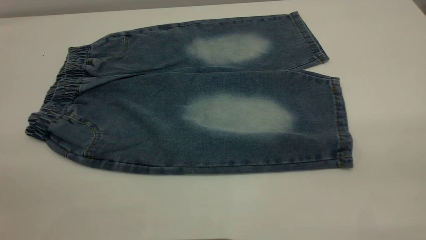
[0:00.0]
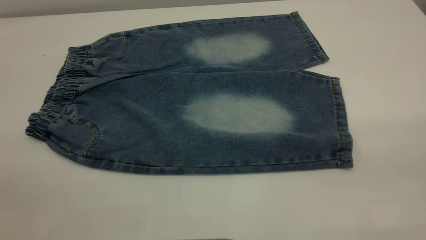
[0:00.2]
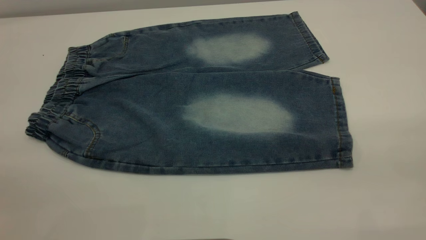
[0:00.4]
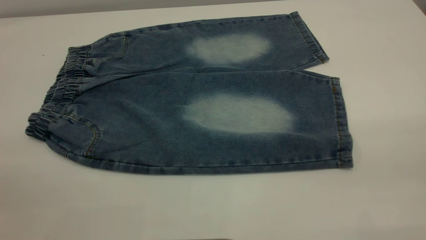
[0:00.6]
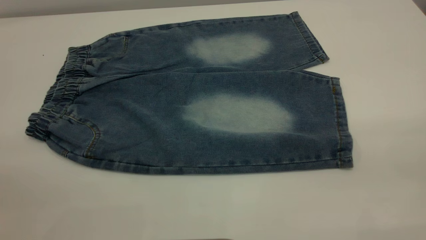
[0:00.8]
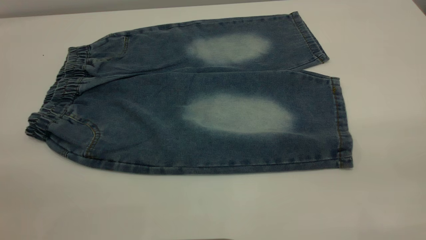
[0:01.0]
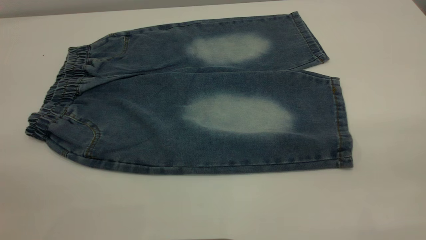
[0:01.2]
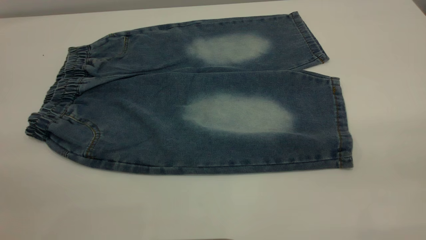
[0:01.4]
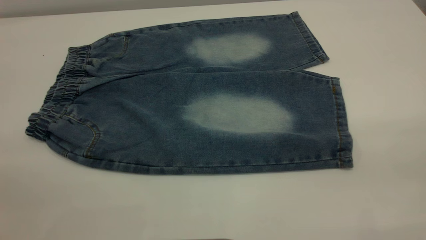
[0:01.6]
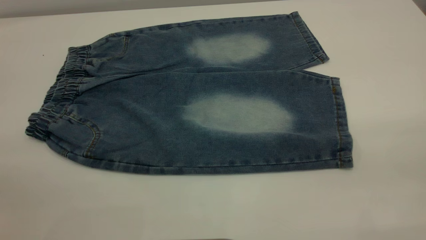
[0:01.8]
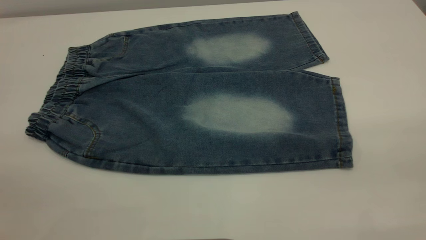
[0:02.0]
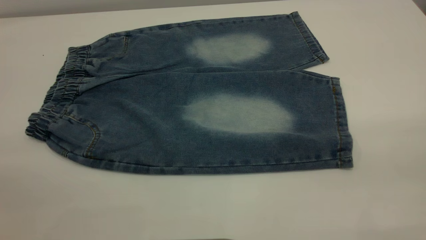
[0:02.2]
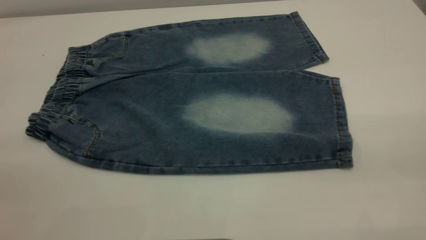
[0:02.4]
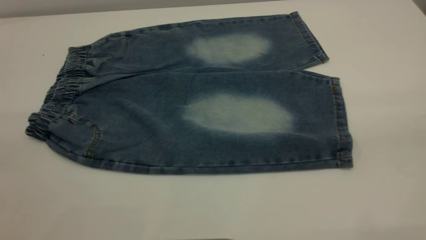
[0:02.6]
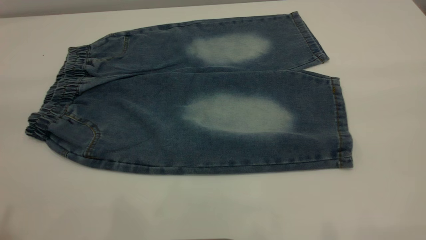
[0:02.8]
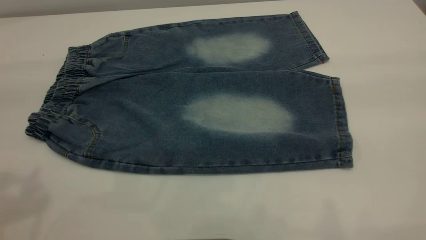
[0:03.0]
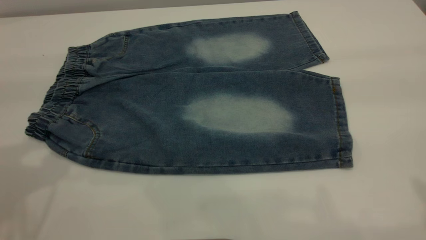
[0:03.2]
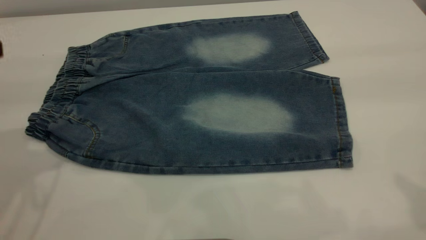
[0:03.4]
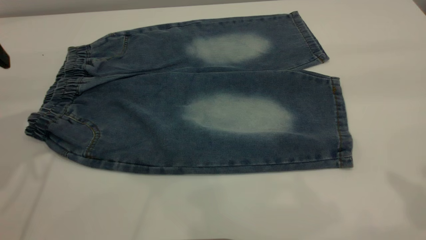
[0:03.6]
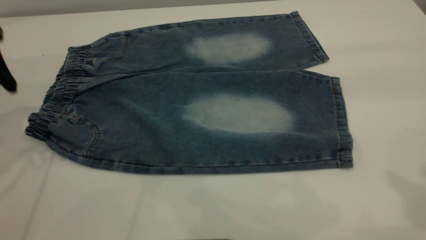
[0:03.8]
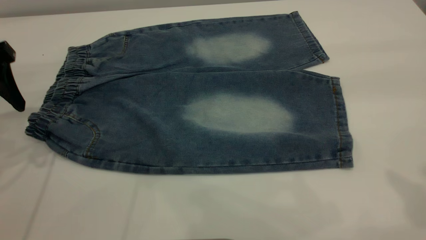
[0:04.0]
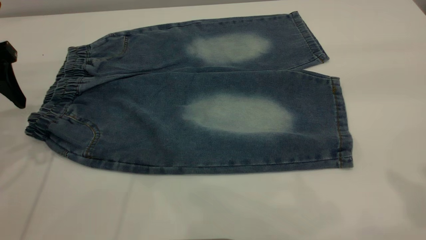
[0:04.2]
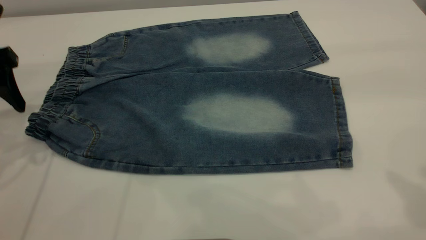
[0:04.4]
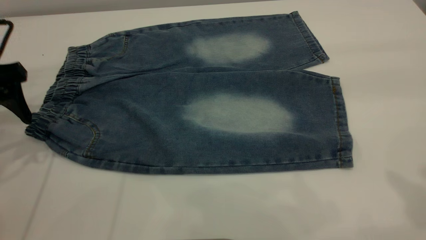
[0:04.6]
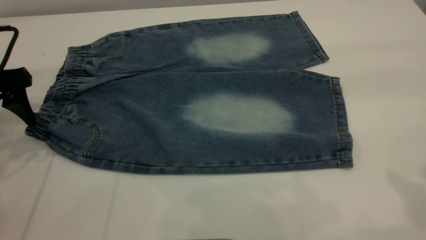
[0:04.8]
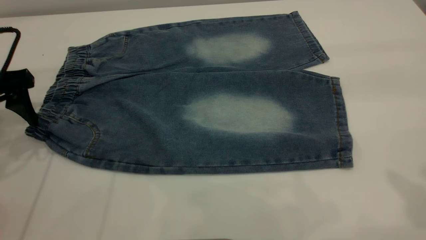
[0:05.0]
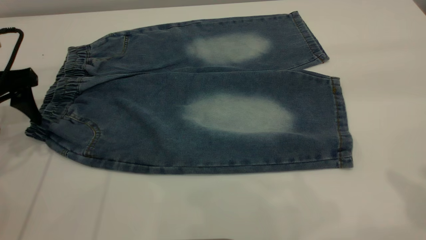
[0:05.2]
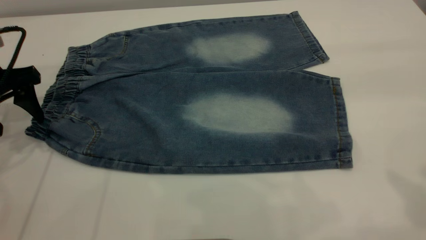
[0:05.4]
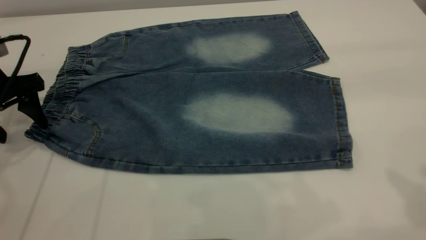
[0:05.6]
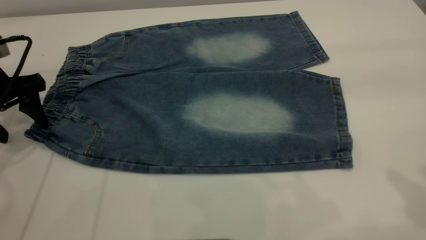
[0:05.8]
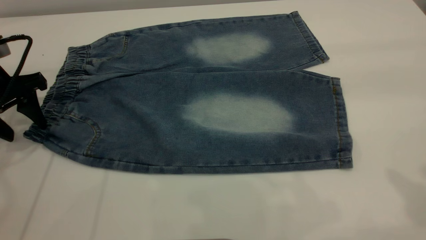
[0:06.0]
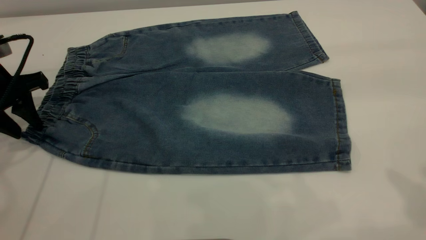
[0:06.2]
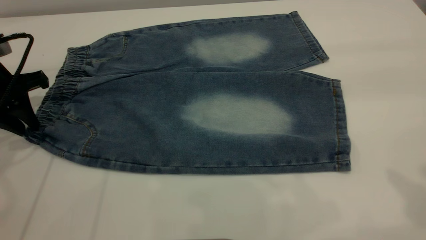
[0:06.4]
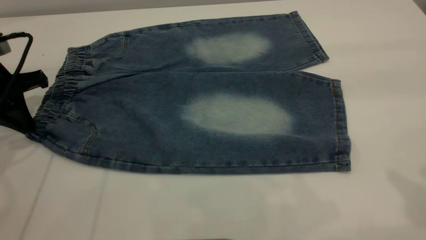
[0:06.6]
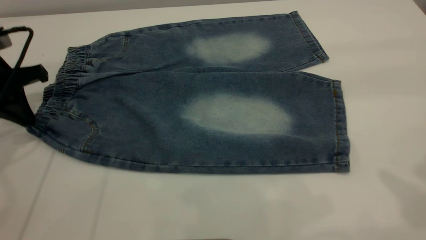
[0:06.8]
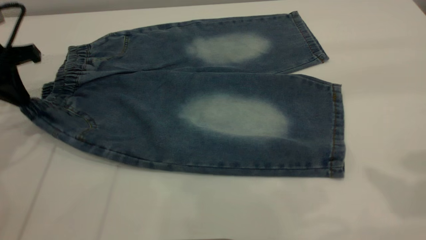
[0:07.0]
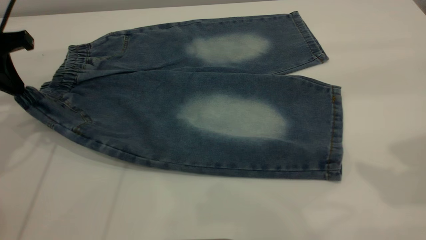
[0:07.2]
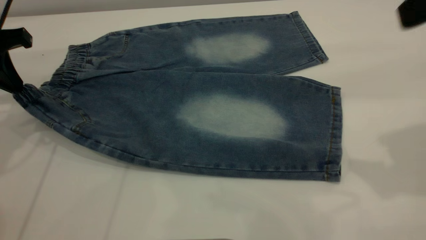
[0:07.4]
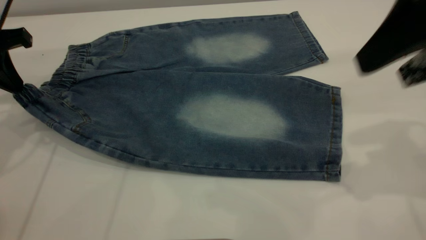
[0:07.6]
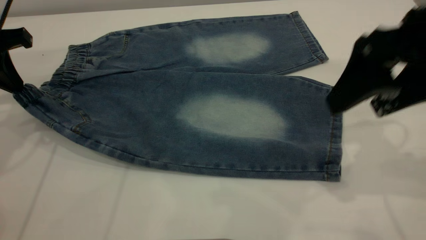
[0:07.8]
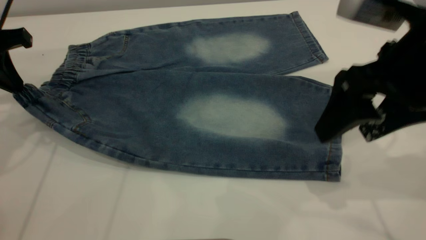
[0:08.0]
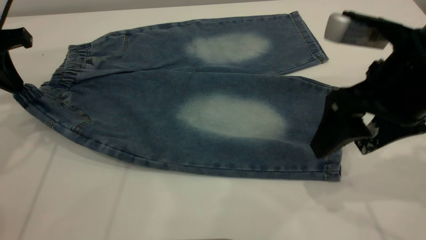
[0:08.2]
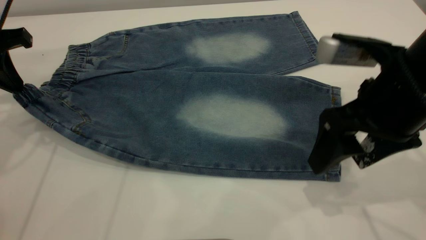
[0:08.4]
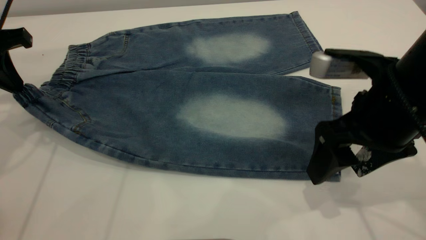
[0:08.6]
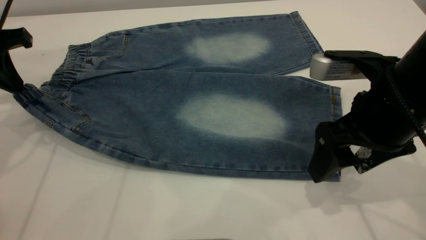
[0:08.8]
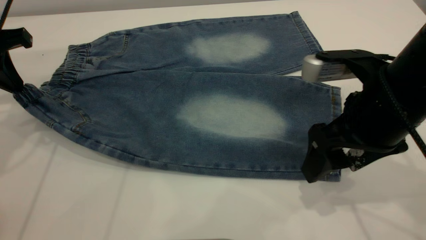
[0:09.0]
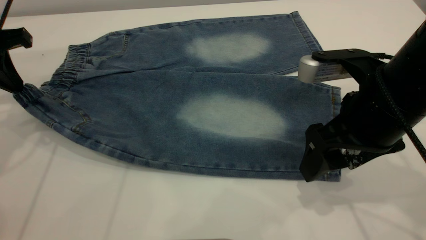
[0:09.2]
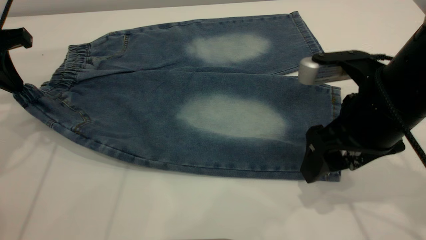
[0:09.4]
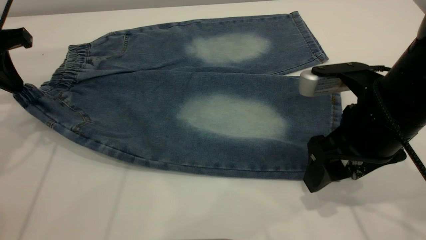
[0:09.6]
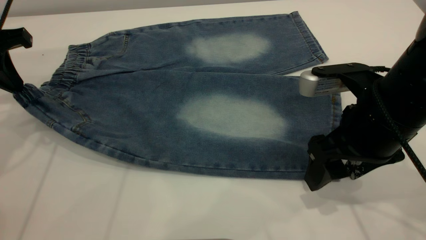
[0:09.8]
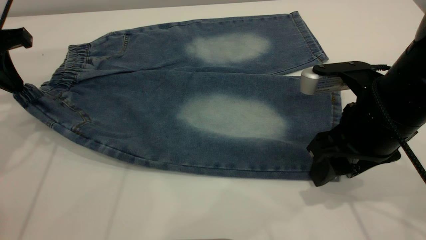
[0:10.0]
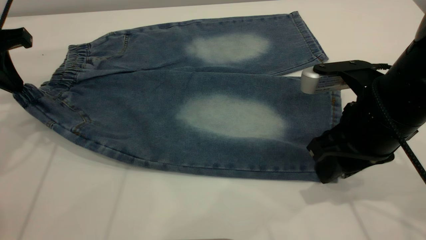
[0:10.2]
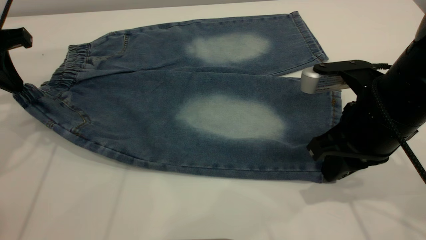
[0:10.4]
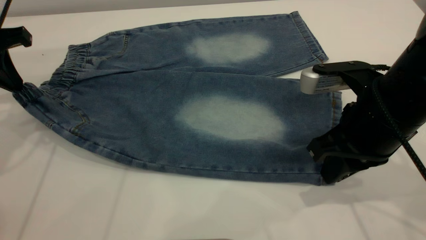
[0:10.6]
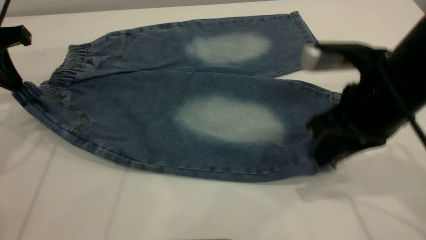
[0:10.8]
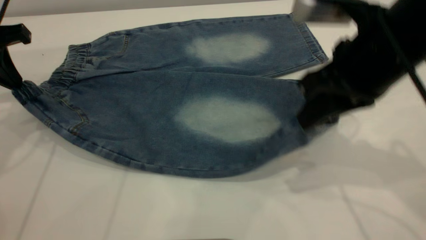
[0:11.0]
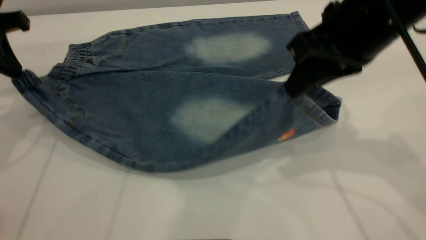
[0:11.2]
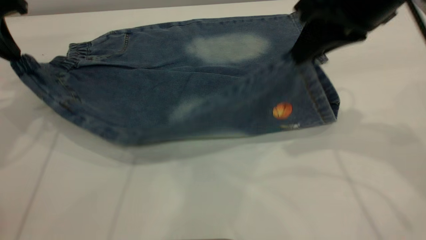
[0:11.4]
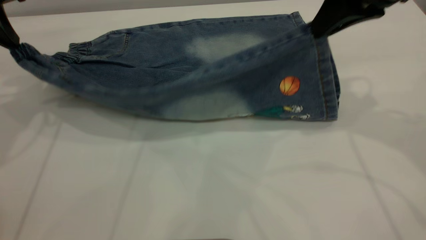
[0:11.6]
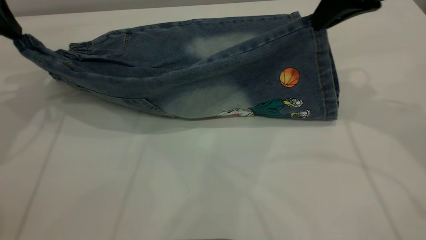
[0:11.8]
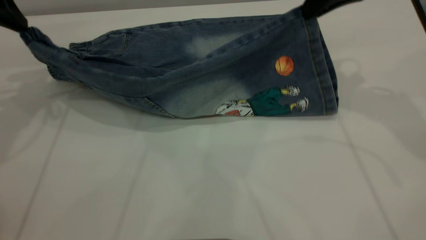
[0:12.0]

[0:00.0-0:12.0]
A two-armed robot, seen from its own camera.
0:00.0 to 0:01.6: The two grippers keep their place.
0:03.0 to 0:04.4: The left gripper is displaced downward and forward by roughly 20 cm.
0:04.4 to 0:06.0: The left gripper goes some 5 cm downward.
0:06.0 to 0:07.6: The left gripper moves upward, about 5 cm, and closes, while the right gripper shifts roughly 15 cm downward and forward.
0:07.6 to 0:09.0: The right gripper heads downward and to the left, covering some 10 cm.
0:09.0 to 0:10.4: The right gripper closes.
0:10.4 to 0:12.0: The right gripper heads forward and upward, covering approximately 20 cm, while the left gripper moves upward, about 5 cm.

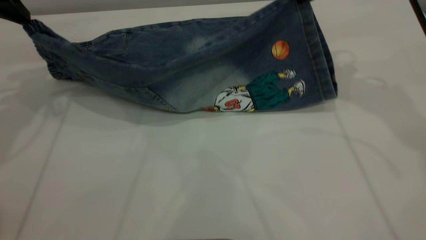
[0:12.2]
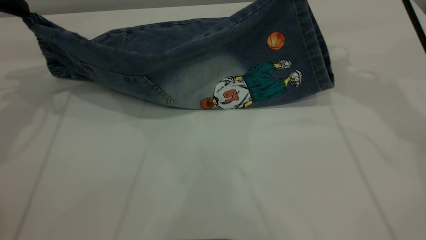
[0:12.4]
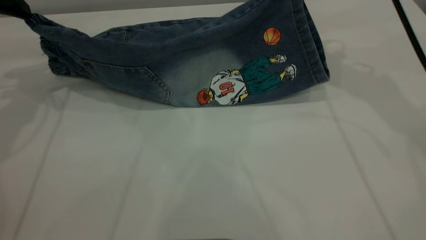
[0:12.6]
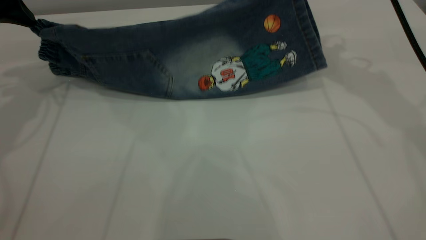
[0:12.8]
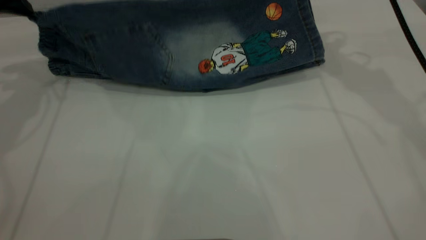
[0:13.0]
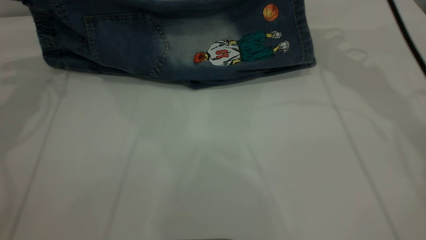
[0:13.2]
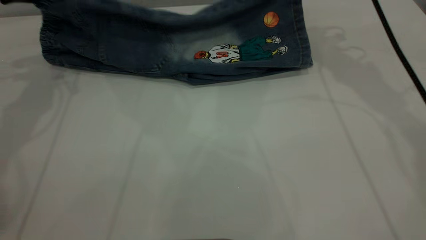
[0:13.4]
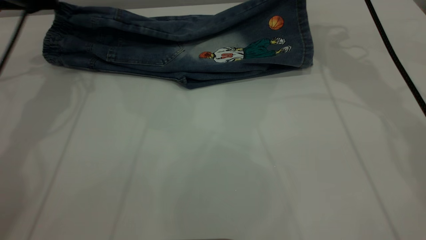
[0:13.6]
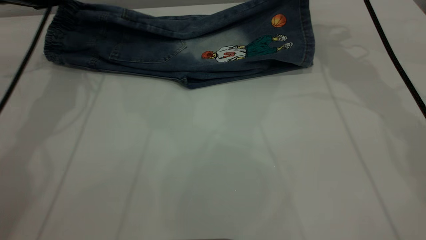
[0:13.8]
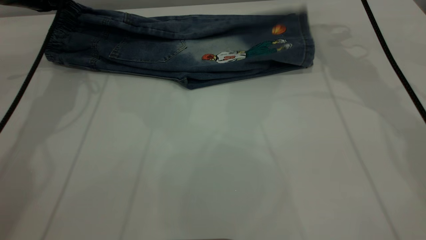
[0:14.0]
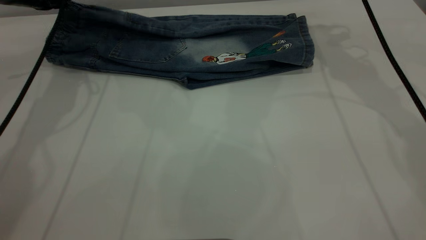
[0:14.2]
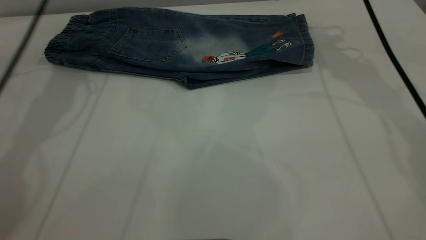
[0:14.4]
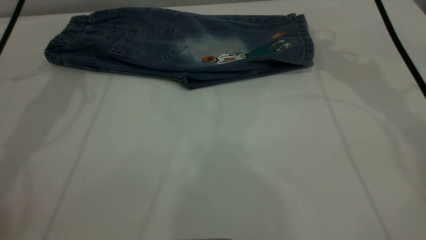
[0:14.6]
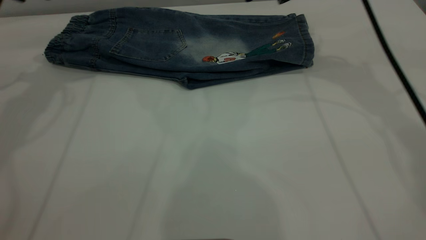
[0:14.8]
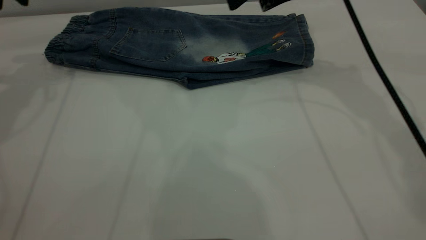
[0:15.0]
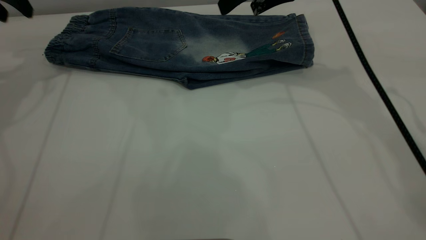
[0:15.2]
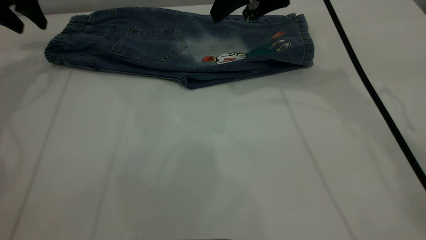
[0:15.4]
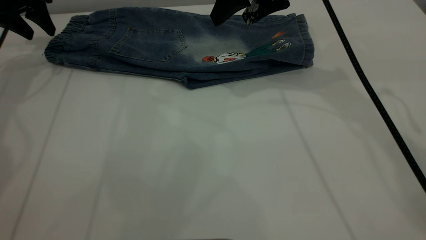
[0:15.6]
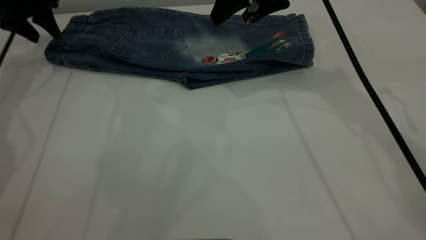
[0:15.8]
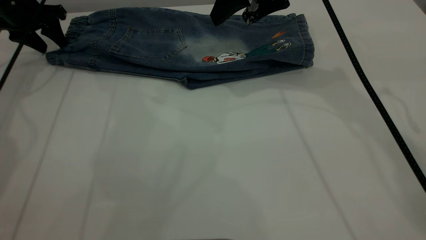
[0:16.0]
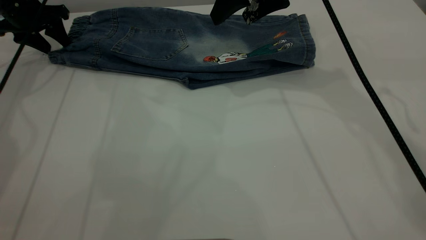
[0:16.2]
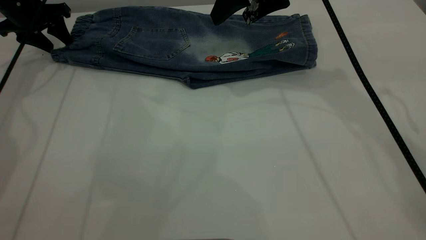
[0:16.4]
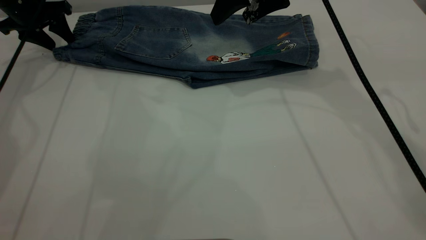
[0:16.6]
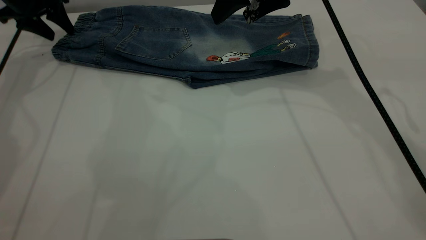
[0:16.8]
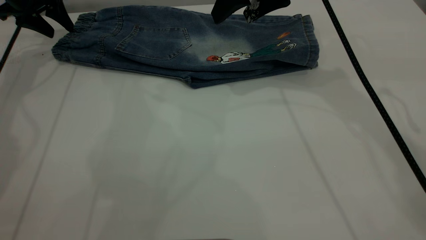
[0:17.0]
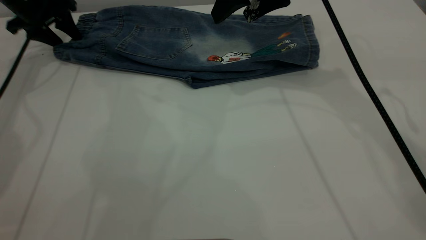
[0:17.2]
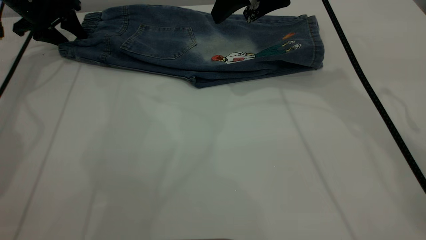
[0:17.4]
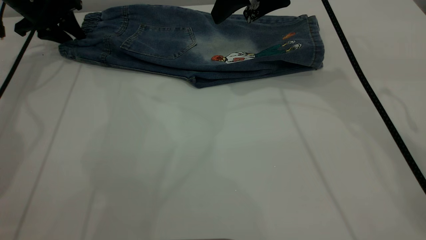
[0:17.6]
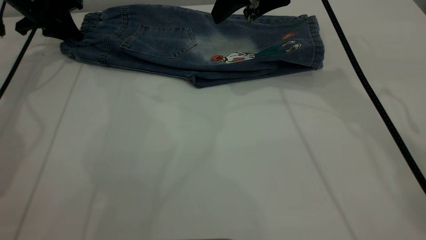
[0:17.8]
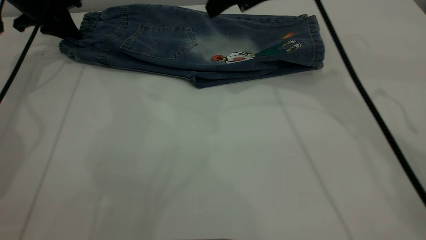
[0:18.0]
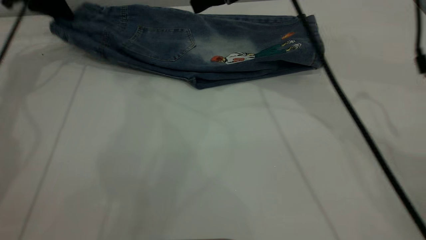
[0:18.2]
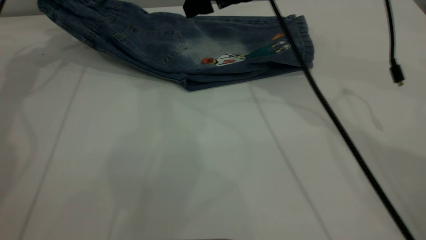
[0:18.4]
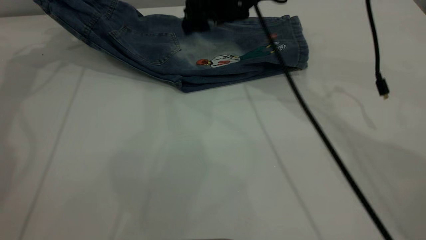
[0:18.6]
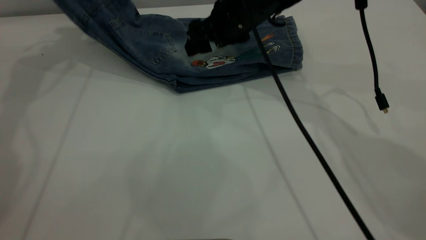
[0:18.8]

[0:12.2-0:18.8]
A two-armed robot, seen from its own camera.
Step, 0:12.2 to 0:14.4: Fold the bottom of the pants upward.
0:12.2 to 0:13.8: The two grippers go approximately 10 cm forward and downward.
0:13.8 to 0:15.4: The left gripper moves to the left, some 5 cm, reaches approximately 5 cm upward, then returns, and opens its fingers. The right gripper goes roughly 10 cm to the left and backward, and opens up.
0:15.4 to 0:17.2: The left gripper is displaced downward and forward by about 10 cm.
0:17.2 to 0:18.8: The right gripper moves downward and to the left, about 10 cm. Meanwhile the left gripper shifts about 15 cm upward, and closes.
